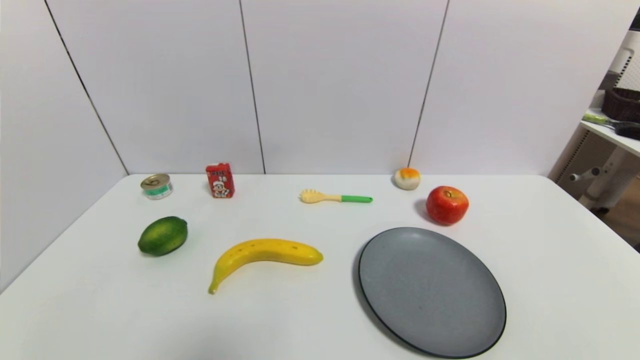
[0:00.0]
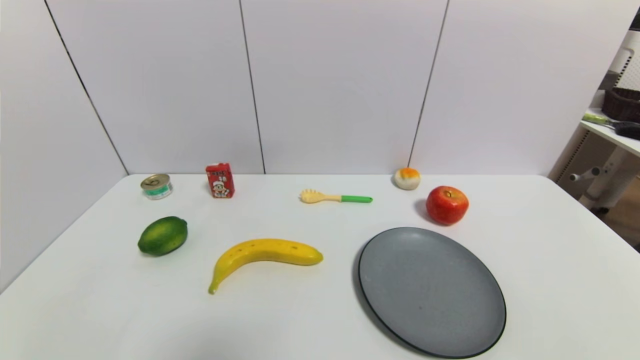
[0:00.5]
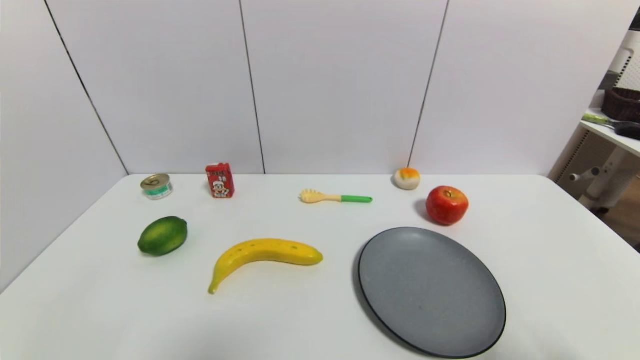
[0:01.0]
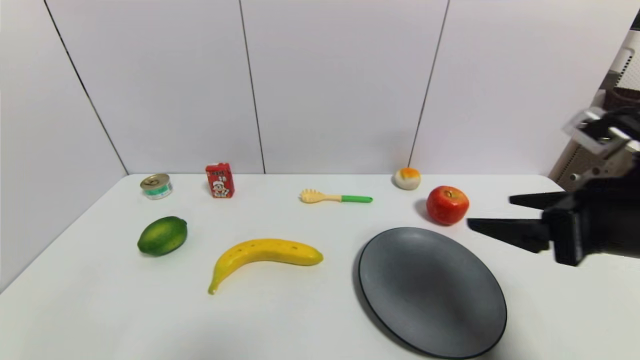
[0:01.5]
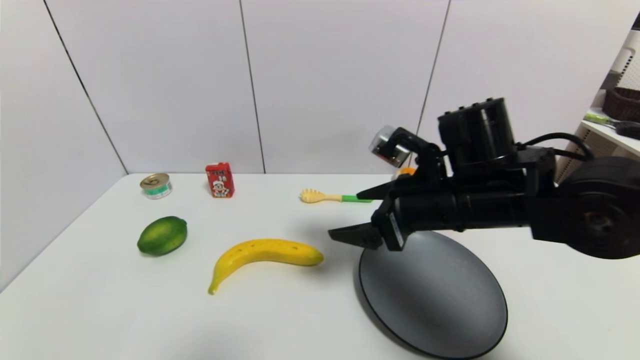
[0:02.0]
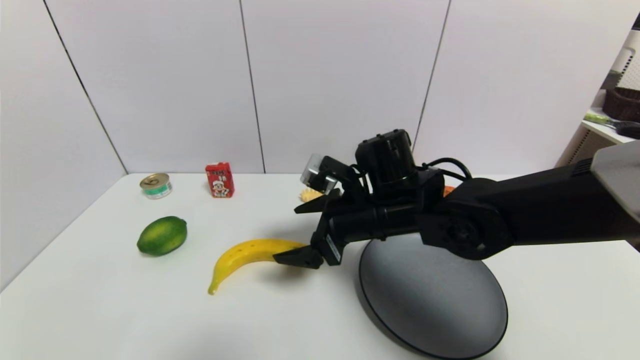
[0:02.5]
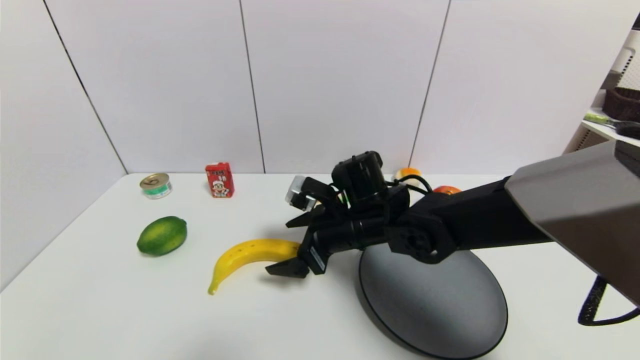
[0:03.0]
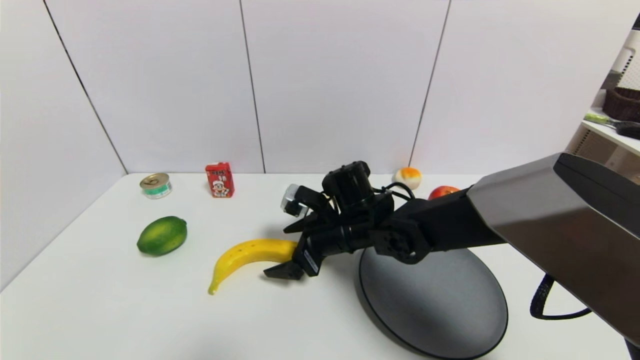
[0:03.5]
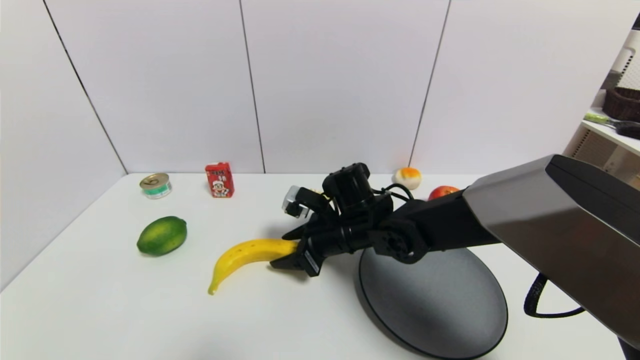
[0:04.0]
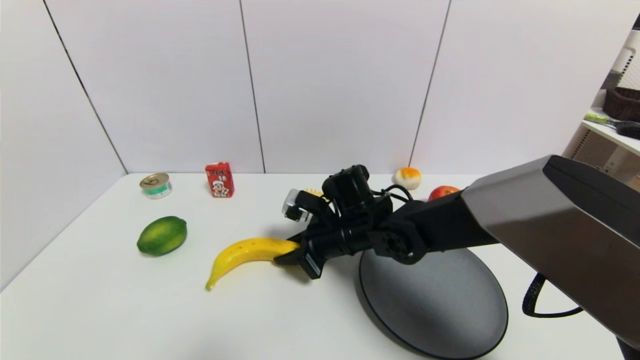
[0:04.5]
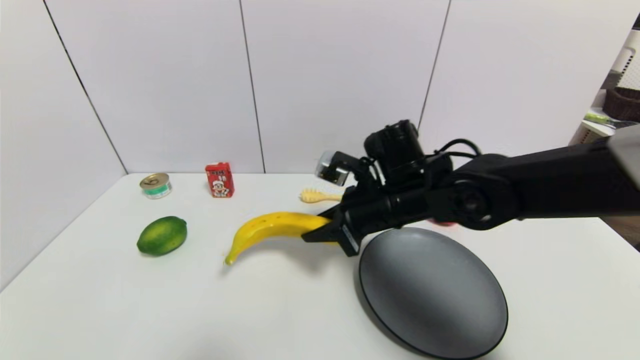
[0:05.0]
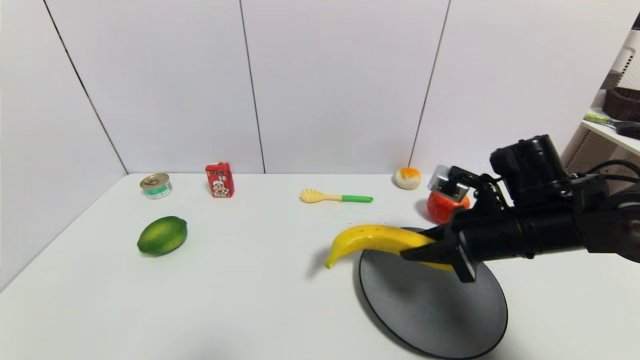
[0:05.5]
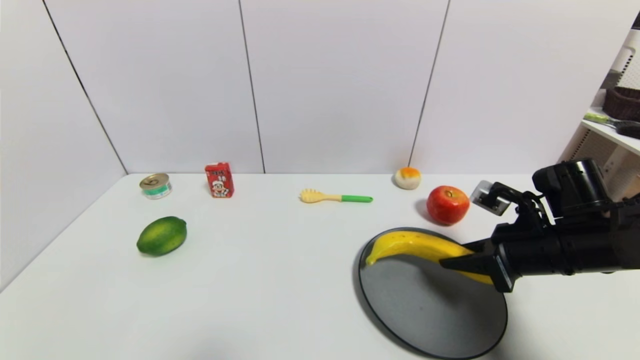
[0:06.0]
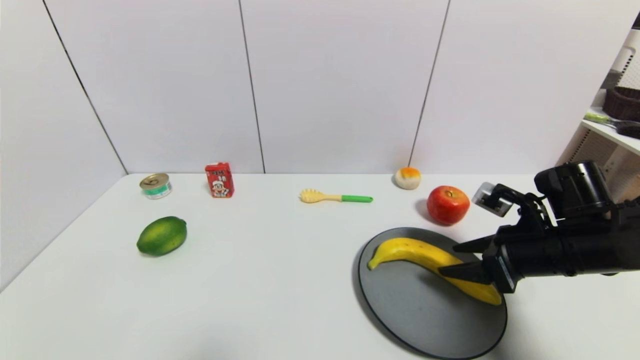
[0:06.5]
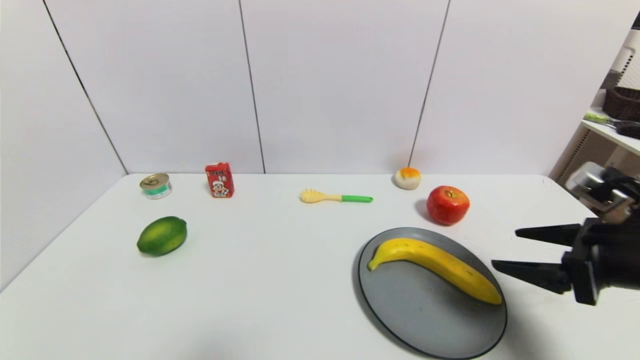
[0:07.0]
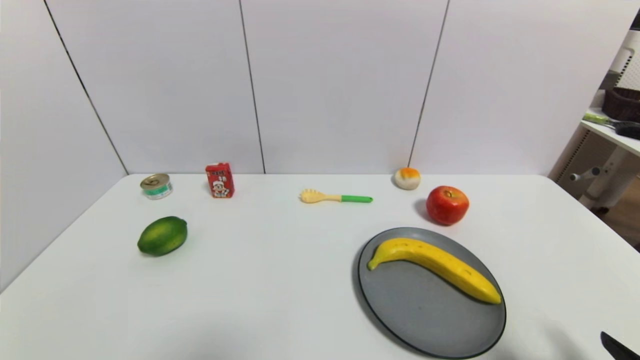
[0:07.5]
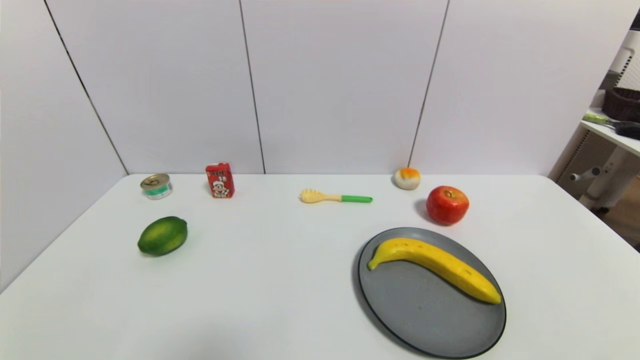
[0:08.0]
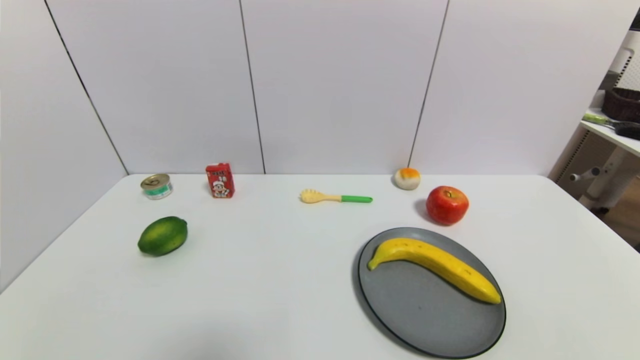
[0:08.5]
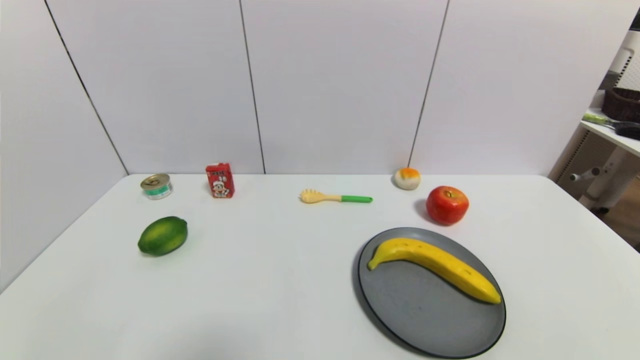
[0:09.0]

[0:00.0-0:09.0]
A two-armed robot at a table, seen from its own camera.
Task of the whole recording: use a gripper to pick the target object and place on the gray plate.
Step, 0:00.0 to 0:04.0: Grasp the banana with the right gripper.
Step, 0:04.5 to 0:06.5: Place the banana on the gray plate with the right gripper.
0:00.0 to 0:02.0: The right gripper moves forward, to the left and upward, roughly 35 cm.
0:02.0 to 0:04.5: The right gripper shifts about 15 cm downward, to the left and forward, and closes.
0:04.5 to 0:07.0: The right gripper shifts about 30 cm to the right and backward, and opens.
0:07.0 to 0:09.0: The right gripper heads backward and downward, covering about 25 cm.
